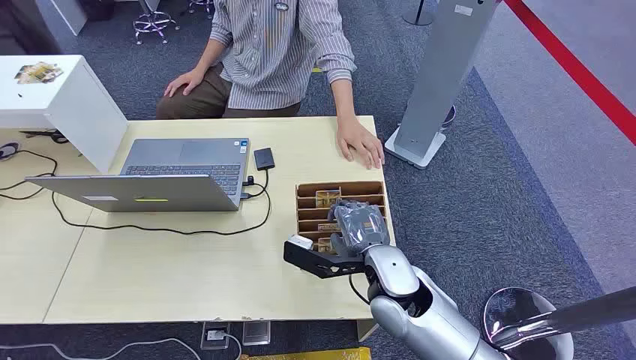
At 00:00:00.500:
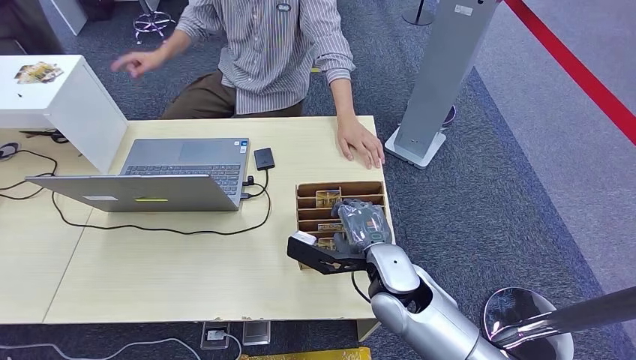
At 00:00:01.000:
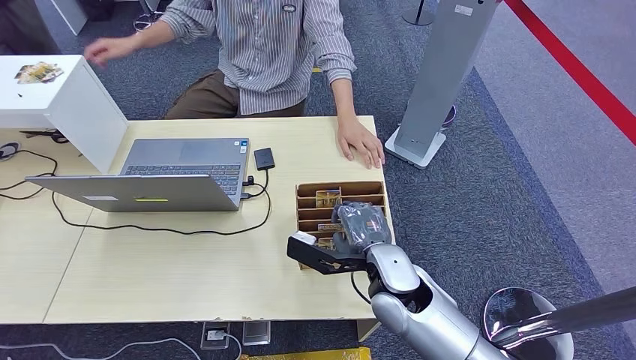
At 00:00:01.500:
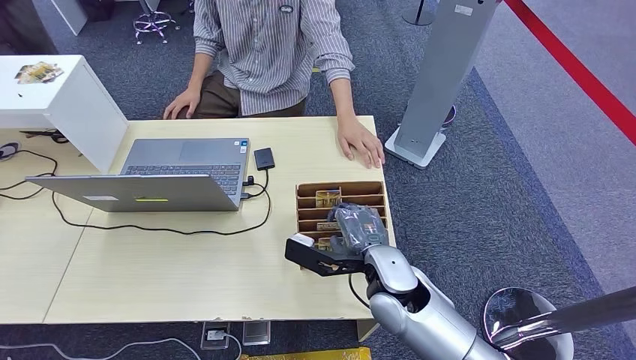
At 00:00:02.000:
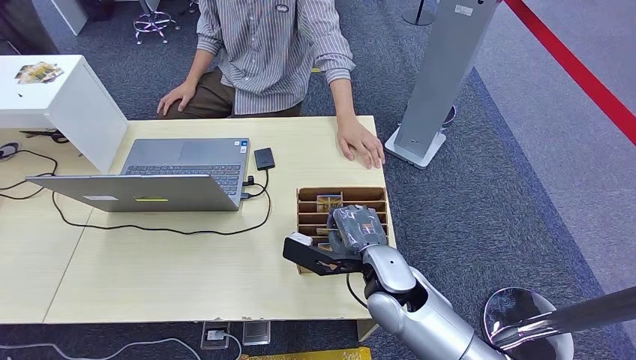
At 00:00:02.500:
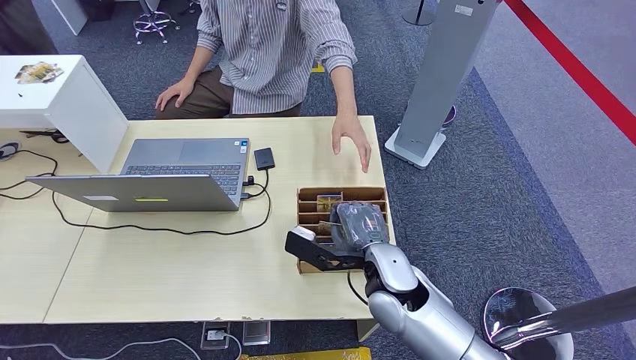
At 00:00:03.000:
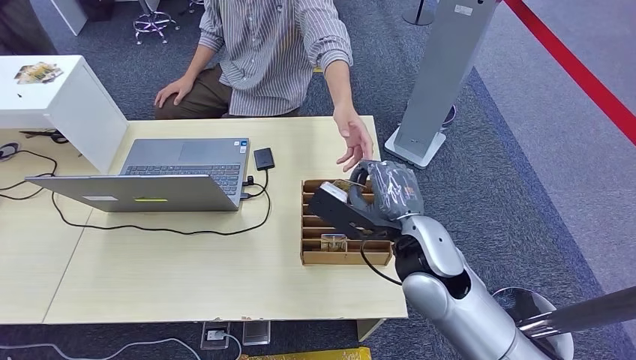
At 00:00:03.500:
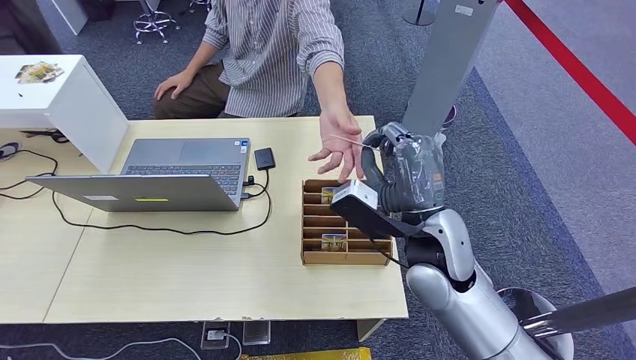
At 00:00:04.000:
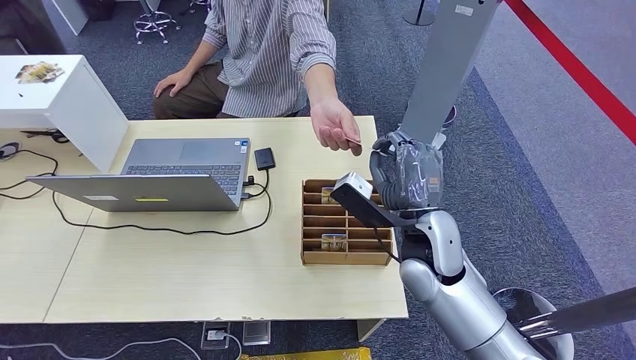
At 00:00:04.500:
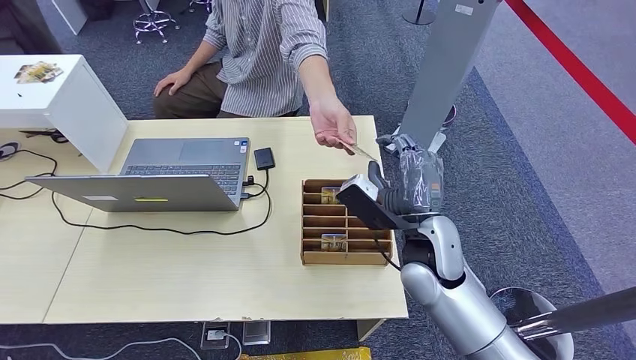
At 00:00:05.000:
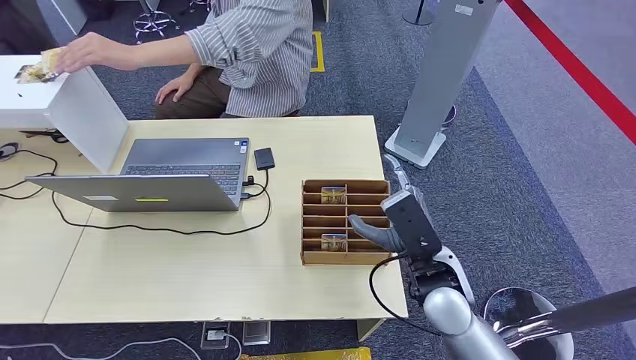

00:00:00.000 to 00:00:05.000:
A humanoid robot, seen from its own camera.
Step, 00:00:00.000 to 00:00:03.000: Pick up the room card from the card holder.
Step, 00:00:04.000 to 00:00:04.500: Hand the room card to the target.
00:00:02.500 to 00:00:05.000: The right hand goes about 5 cm to the right, and reaches roughly 10 cm upward, then returns.
